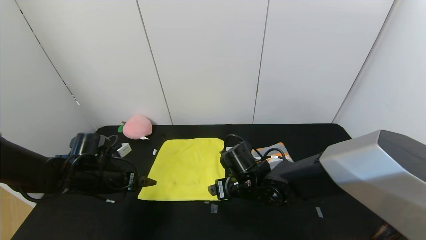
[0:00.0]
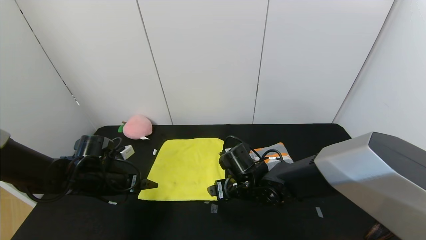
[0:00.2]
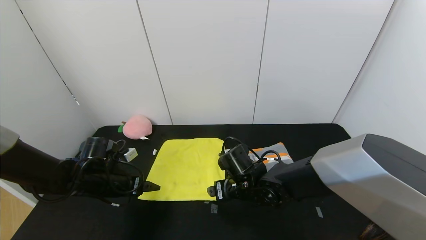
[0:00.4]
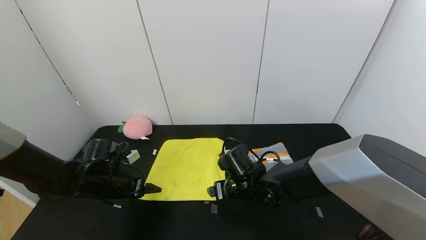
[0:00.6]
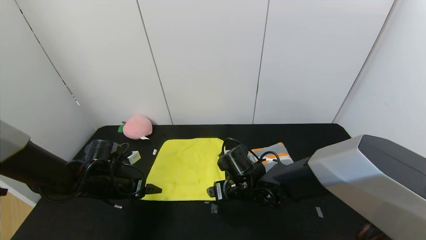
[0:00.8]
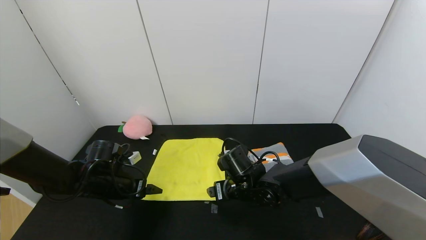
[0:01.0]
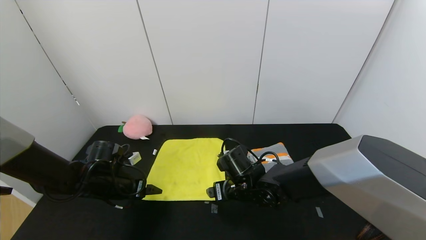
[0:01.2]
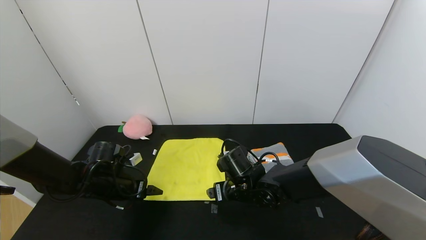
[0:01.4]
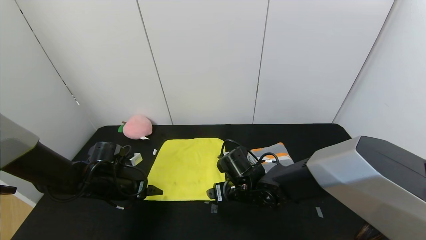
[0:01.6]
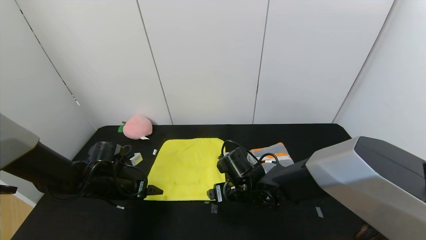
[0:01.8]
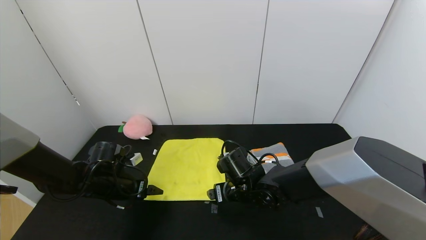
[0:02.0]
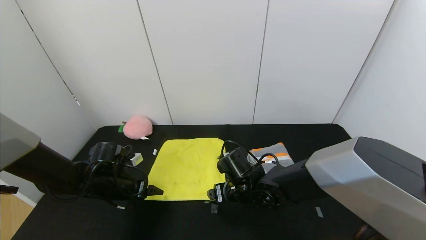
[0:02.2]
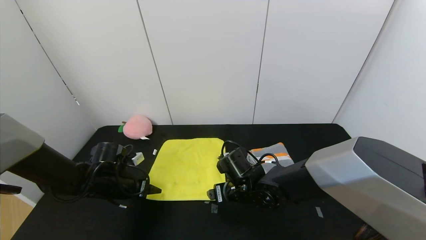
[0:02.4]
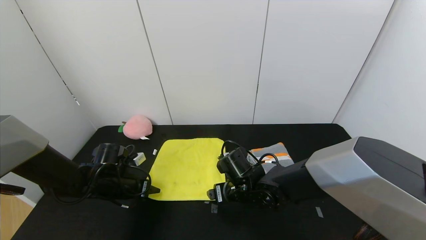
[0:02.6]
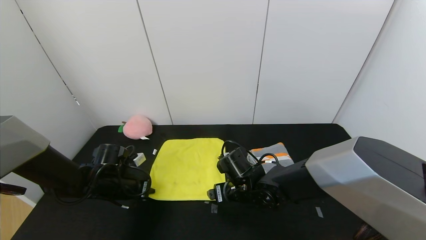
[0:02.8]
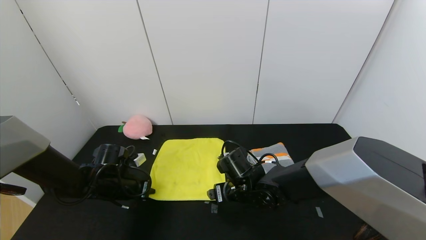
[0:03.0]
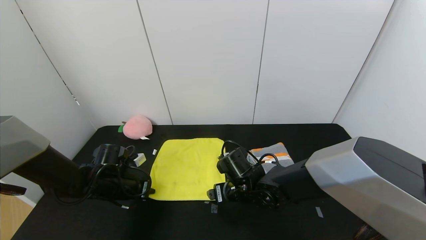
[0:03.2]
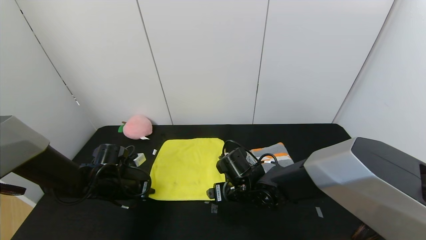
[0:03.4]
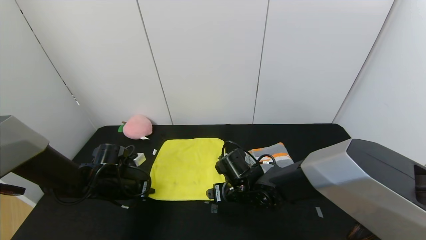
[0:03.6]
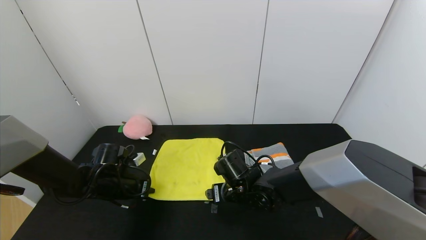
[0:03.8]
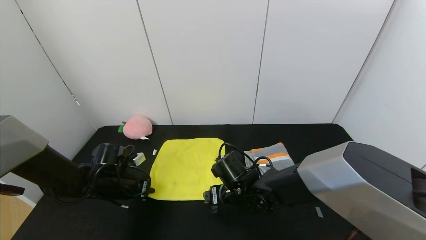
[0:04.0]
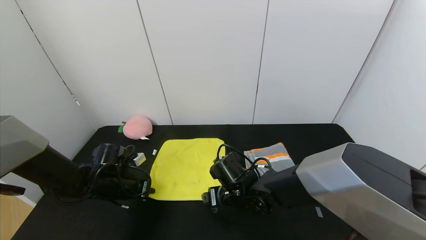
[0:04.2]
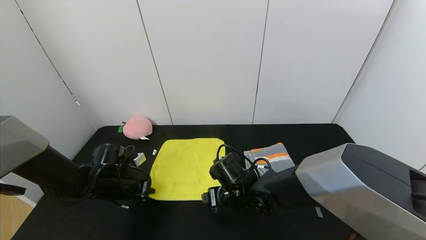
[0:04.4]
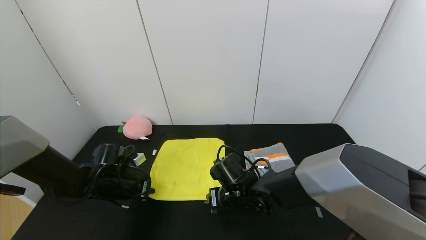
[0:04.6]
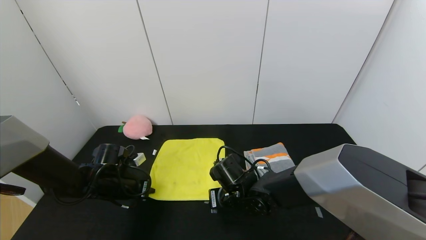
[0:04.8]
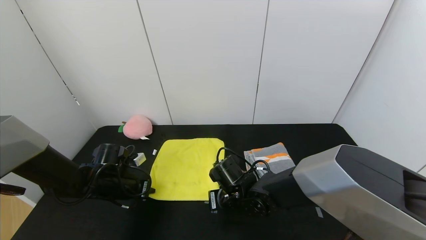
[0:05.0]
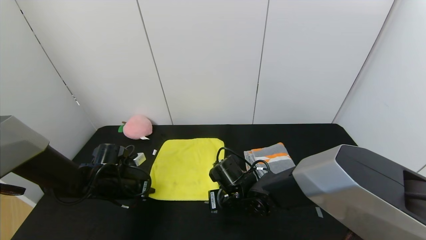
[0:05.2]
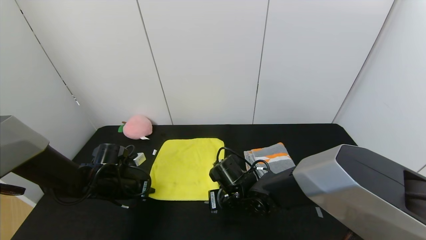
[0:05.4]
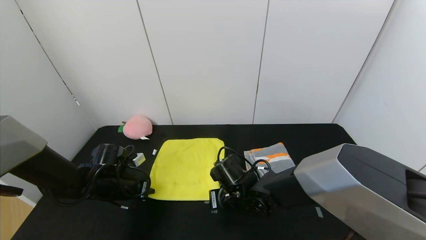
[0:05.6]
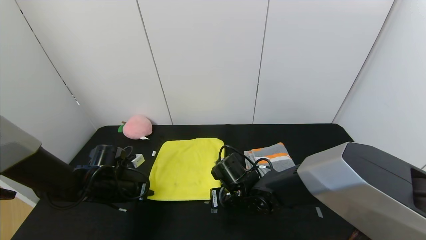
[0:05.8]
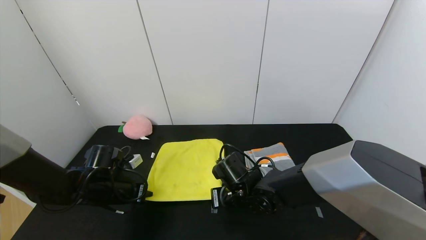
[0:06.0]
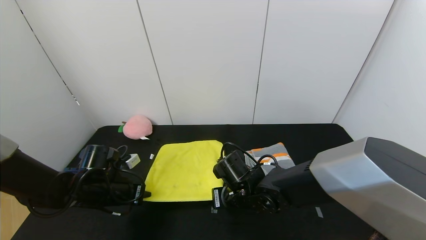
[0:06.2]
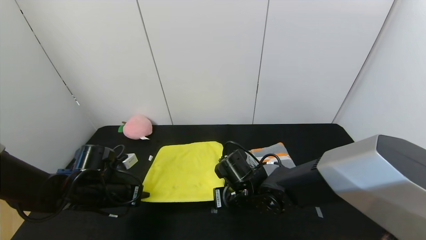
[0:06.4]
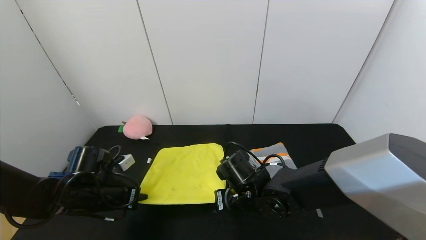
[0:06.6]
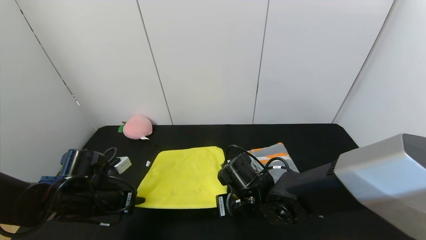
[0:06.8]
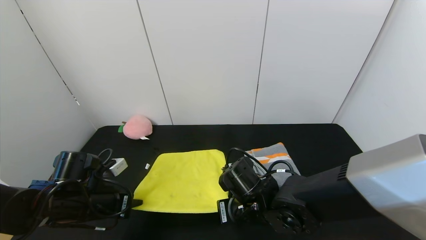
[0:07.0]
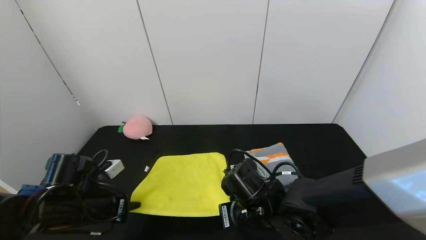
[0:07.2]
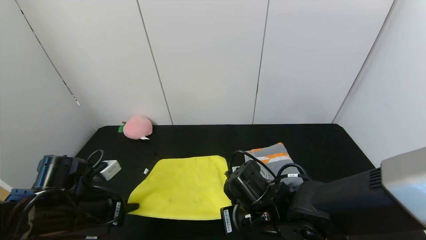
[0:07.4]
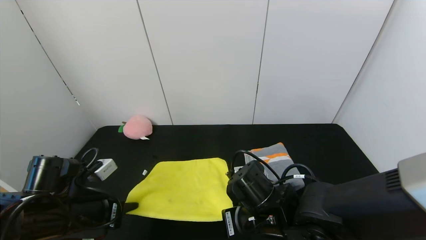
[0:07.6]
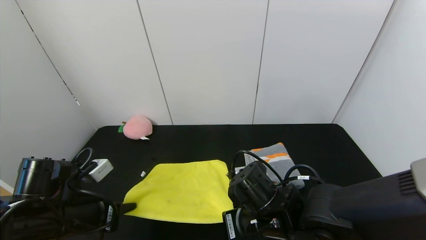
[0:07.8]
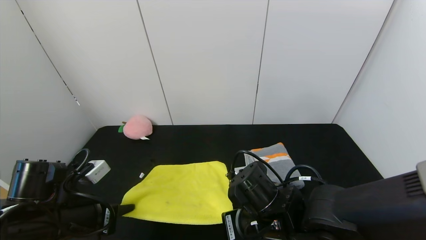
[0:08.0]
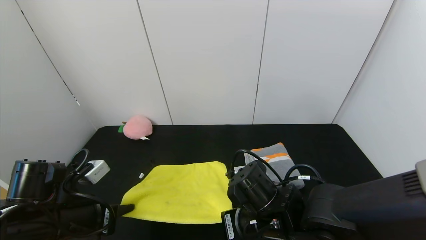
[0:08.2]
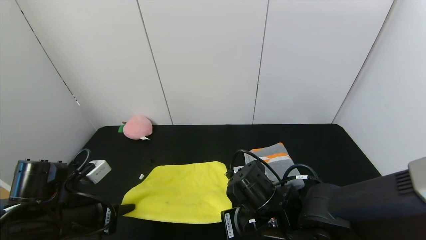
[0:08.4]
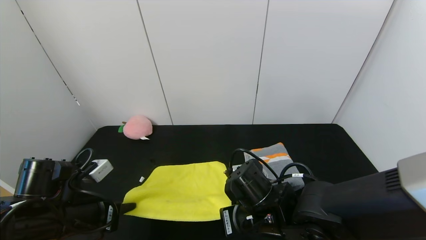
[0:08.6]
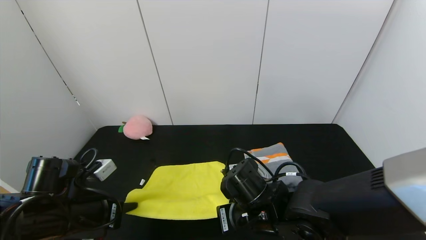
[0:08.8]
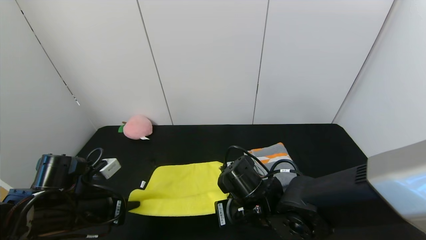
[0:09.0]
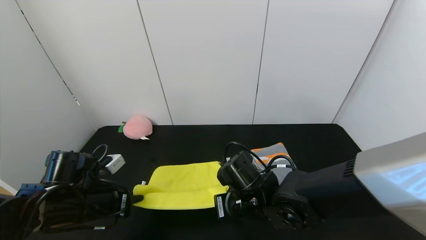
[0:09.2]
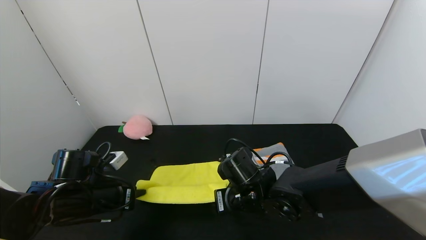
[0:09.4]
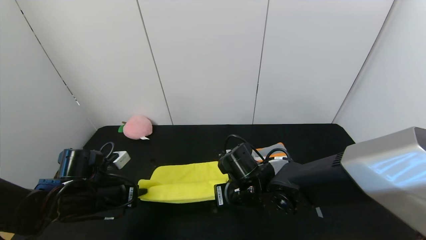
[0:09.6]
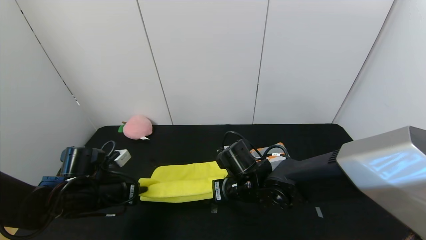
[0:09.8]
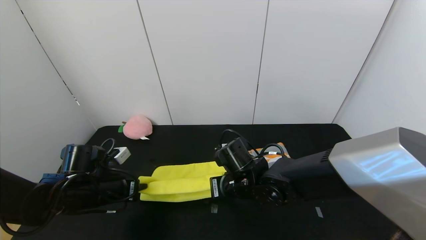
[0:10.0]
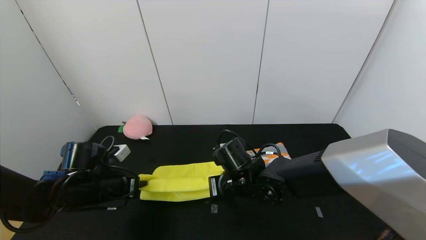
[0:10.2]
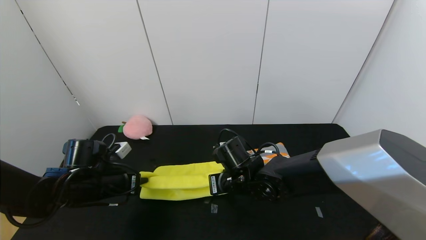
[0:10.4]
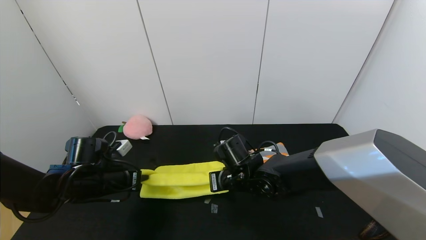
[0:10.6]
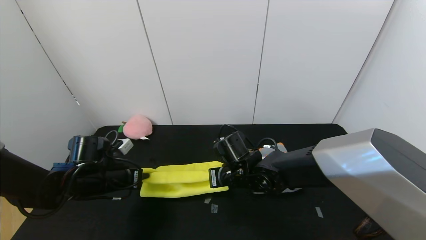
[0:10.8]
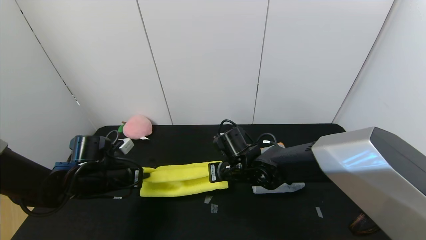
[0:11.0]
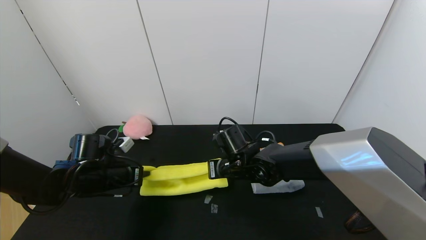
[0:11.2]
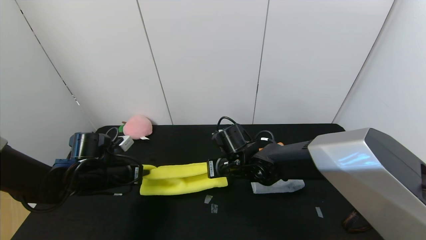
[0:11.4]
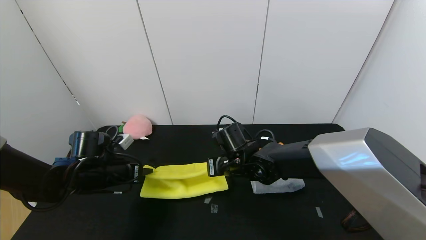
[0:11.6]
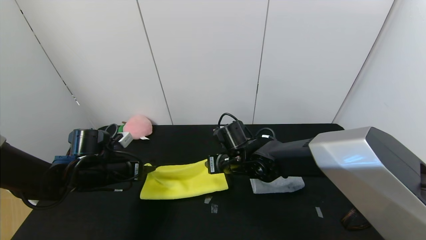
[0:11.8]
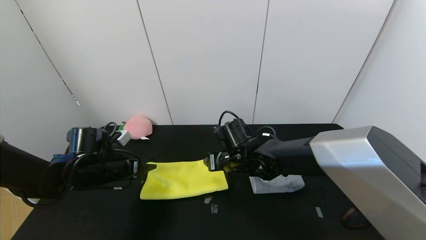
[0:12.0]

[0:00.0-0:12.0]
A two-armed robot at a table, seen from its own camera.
Task of the whole recording: Use the gripper to fold the yellow towel and grey towel in half twice,then put the yellow towel on the grey towel.
0:00.0 to 0:01.6: The grippers move only a little.
0:01.6 to 0:03.0: The left gripper closes up.
0:03.0 to 0:04.4: There are only small adjustments of the grippers.
0:04.4 to 0:06.0: The right gripper closes up.
0:06.0 to 0:07.6: The left gripper goes about 10 cm backward and upward; the right gripper goes some 10 cm backward.
0:07.6 to 0:09.0: The grippers stay close to where they were, moving slightly.
0:09.0 to 0:10.4: The two grippers go some 5 cm forward.
0:10.4 to 0:12.0: The right gripper moves roughly 5 cm, and opens up. The left gripper opens up.

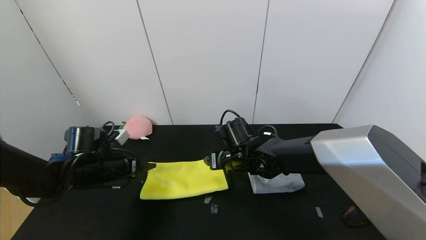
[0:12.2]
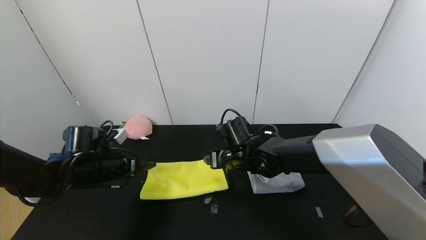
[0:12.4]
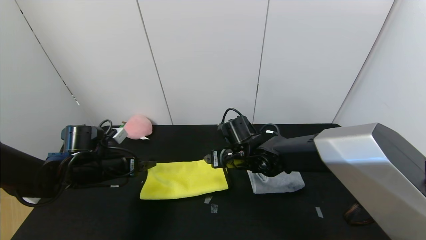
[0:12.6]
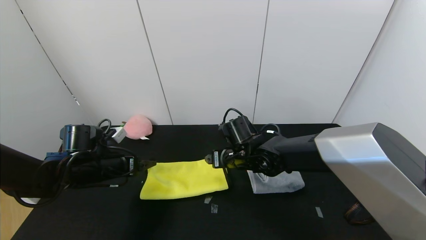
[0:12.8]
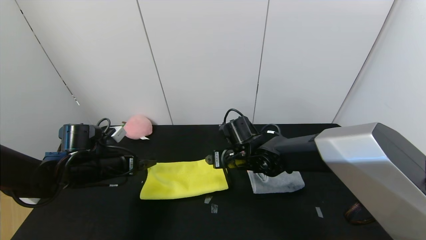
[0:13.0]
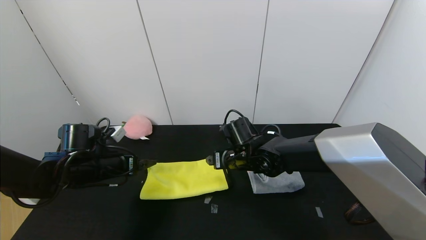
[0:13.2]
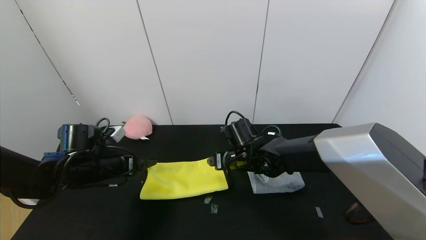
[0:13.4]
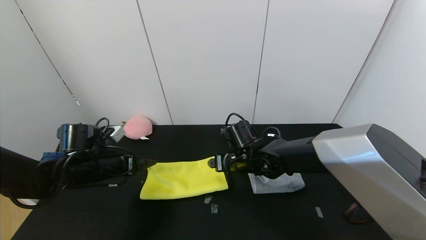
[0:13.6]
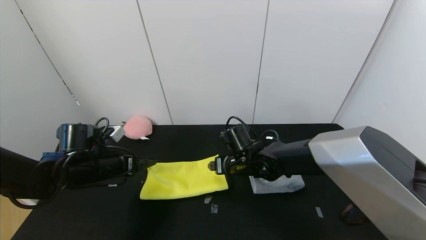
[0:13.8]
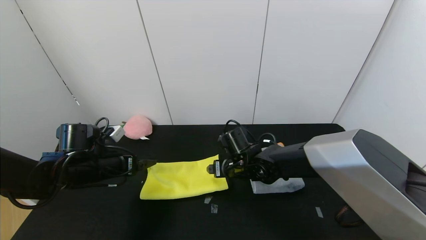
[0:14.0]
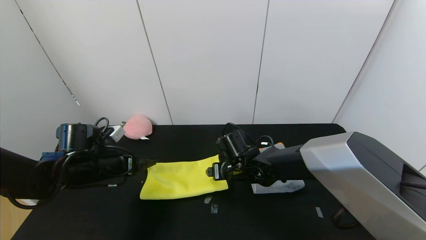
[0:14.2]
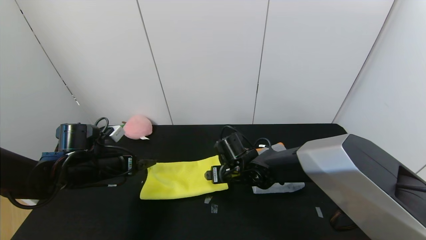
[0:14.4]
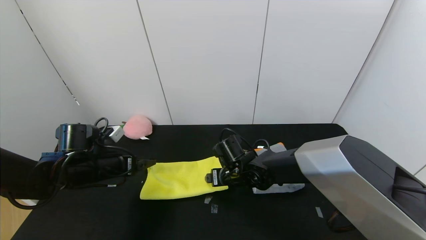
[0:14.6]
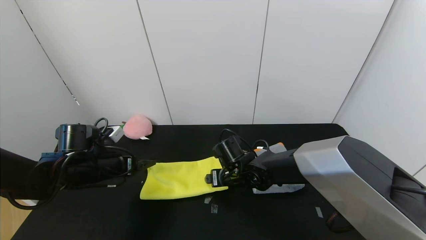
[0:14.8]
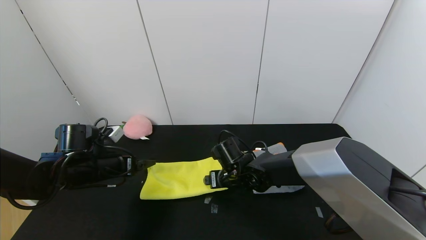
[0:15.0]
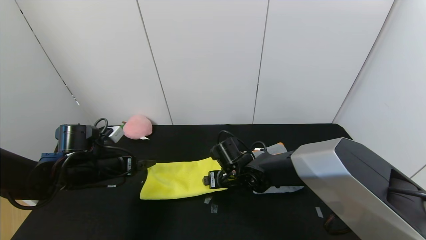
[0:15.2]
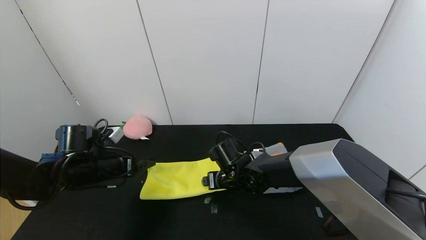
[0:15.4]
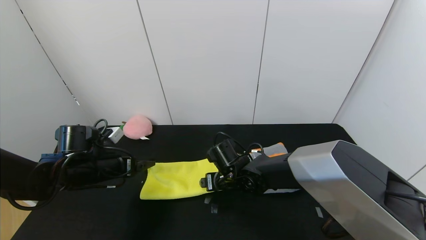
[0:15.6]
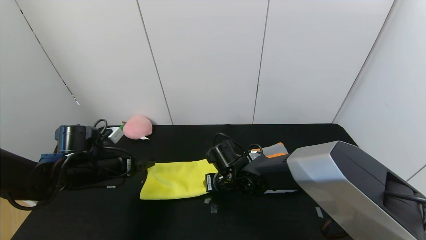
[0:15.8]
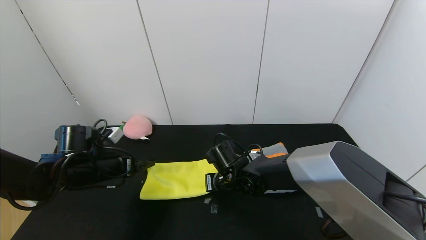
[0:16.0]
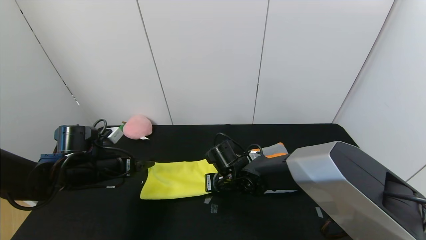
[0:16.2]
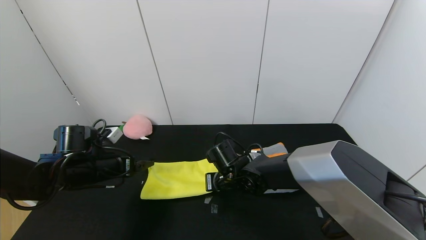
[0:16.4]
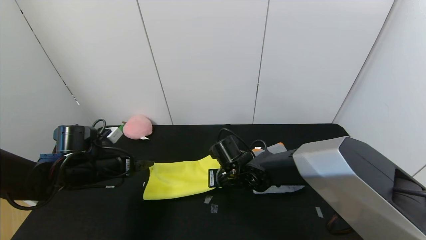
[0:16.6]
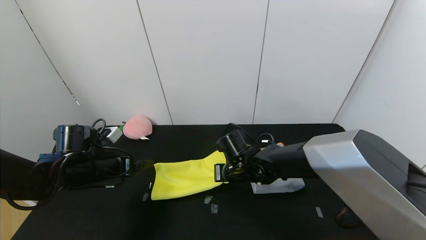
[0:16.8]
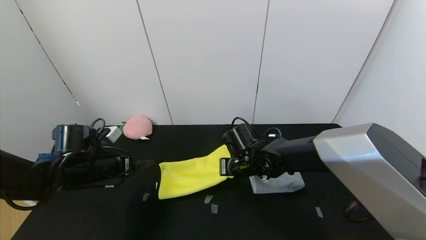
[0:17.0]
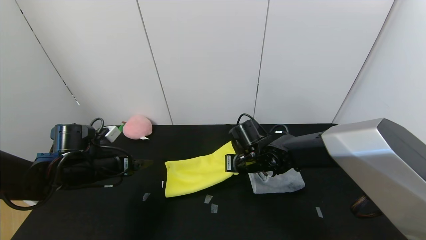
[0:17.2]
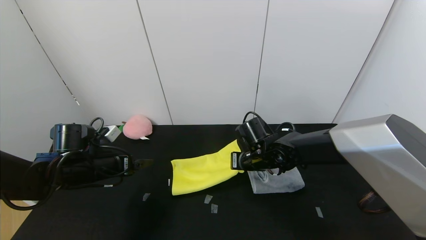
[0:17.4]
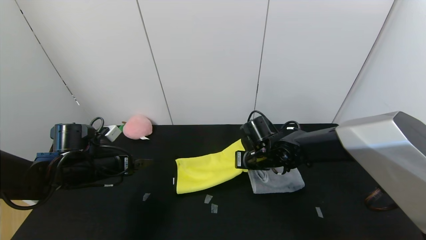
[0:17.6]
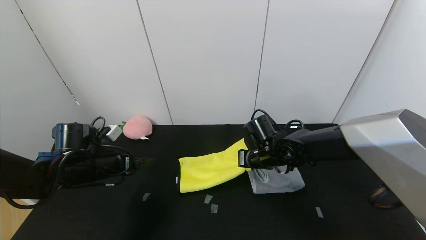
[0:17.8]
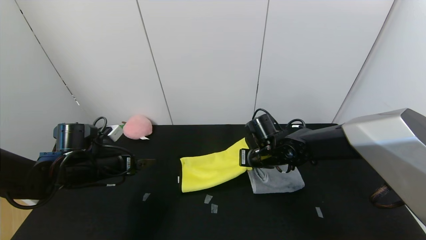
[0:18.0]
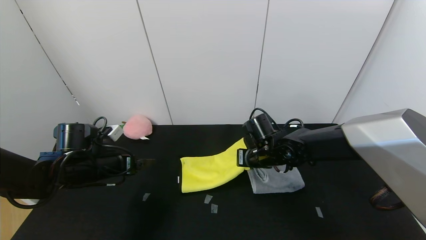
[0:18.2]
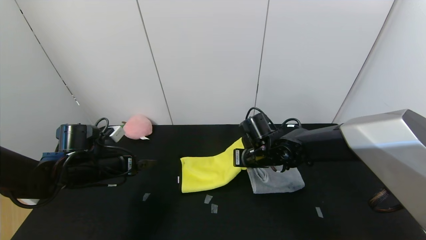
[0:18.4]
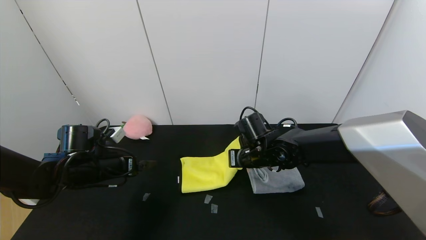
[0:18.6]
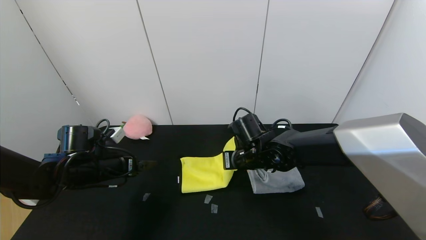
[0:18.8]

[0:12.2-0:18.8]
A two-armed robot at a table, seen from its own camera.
Task of the whole recording: Use the gripper to fold the yellow towel and grey towel in half twice,then put the yellow towel on the grey towel.
0:12.2 to 0:15.4: The grippers move only a little.
0:15.4 to 0:17.2: The right gripper travels to the right by approximately 5 cm, and closes.
0:17.2 to 0:18.8: There are only small adjustments of the grippers.
